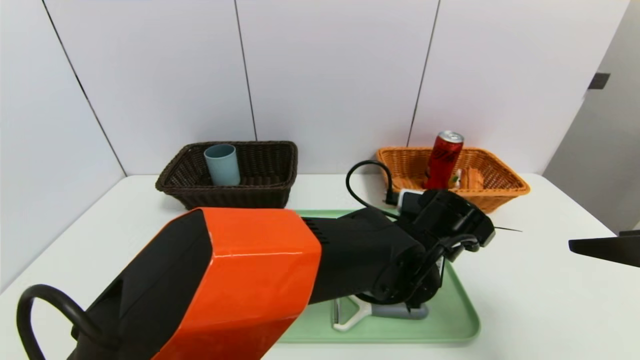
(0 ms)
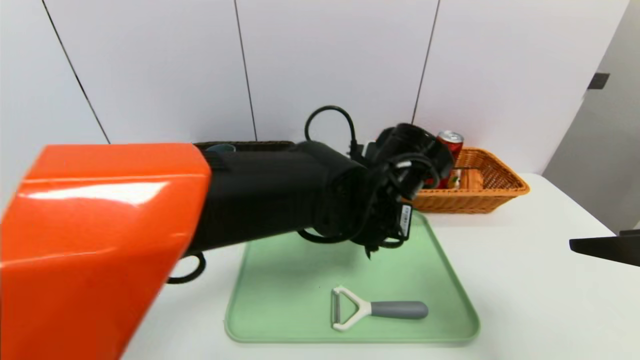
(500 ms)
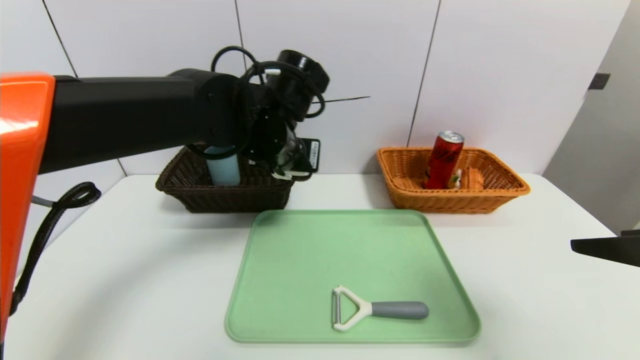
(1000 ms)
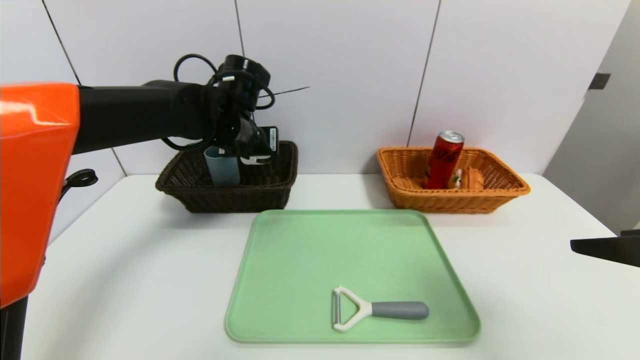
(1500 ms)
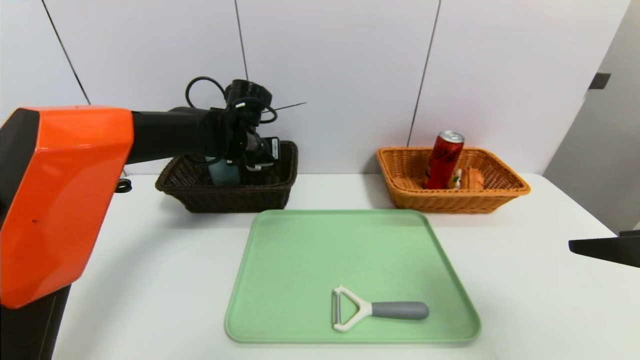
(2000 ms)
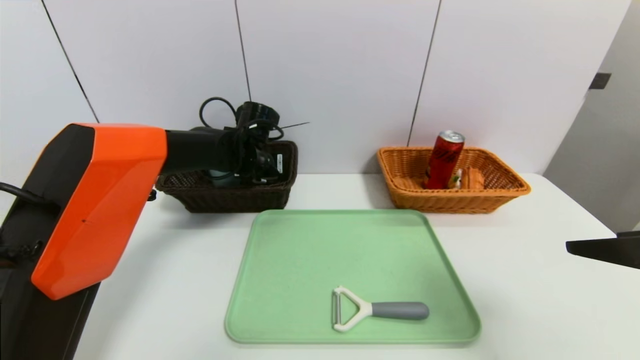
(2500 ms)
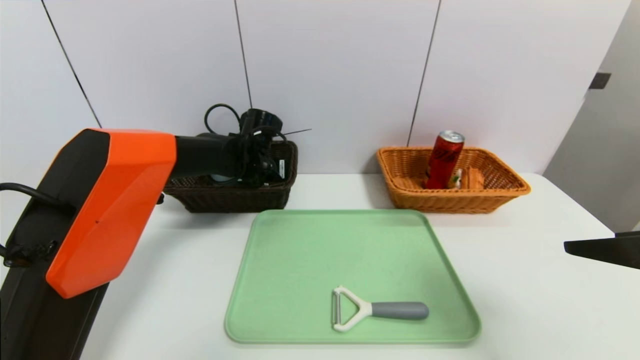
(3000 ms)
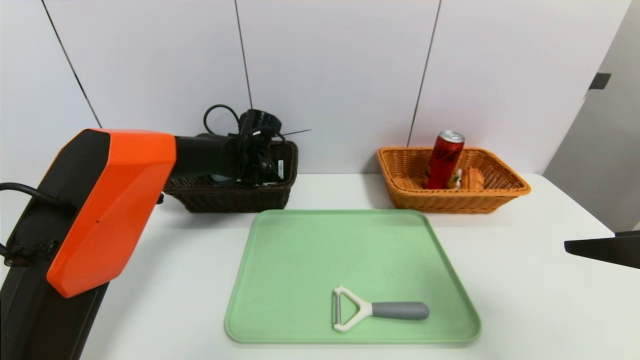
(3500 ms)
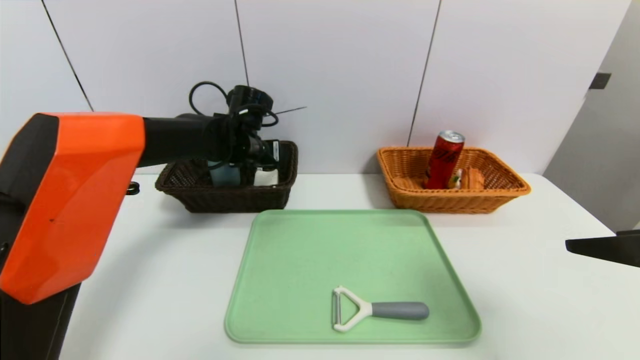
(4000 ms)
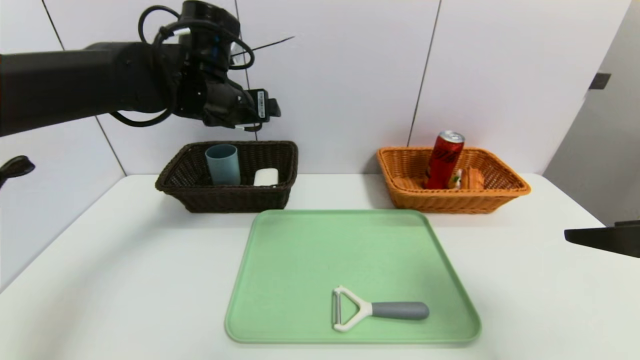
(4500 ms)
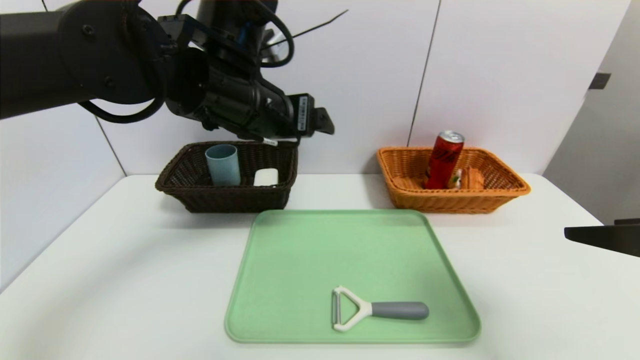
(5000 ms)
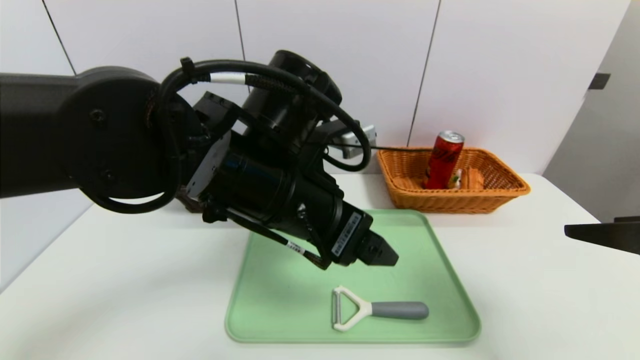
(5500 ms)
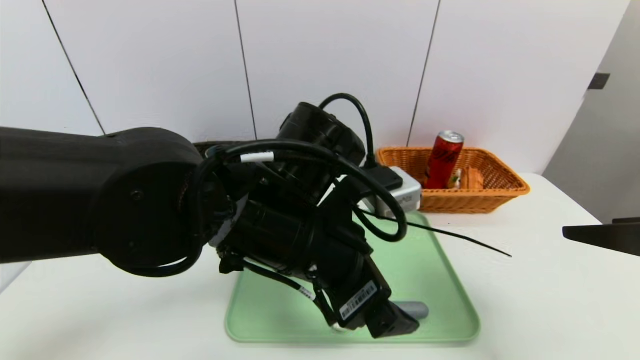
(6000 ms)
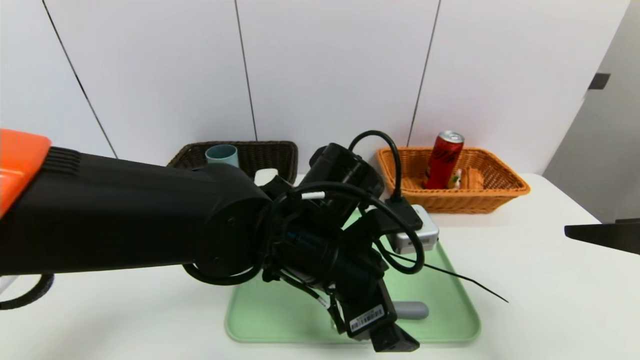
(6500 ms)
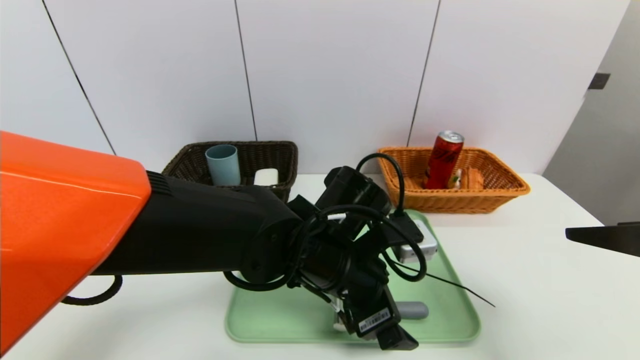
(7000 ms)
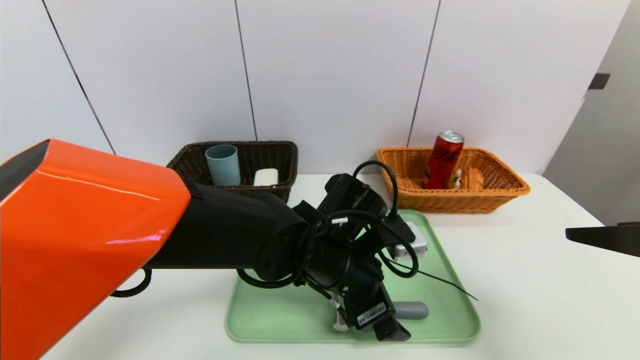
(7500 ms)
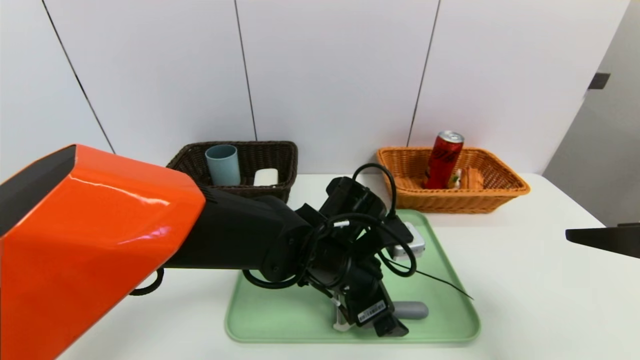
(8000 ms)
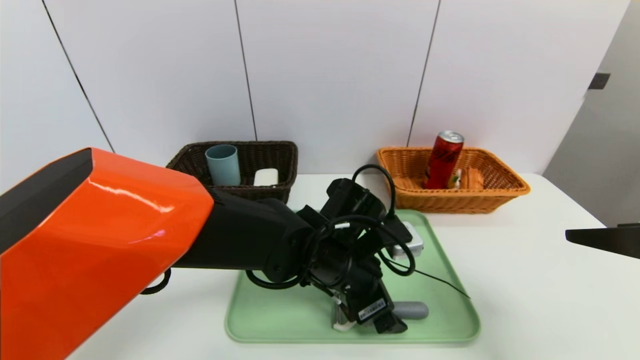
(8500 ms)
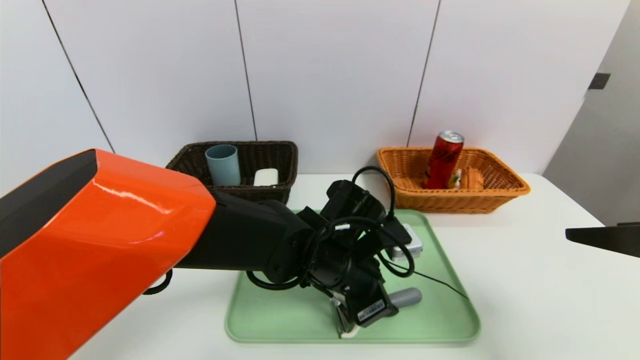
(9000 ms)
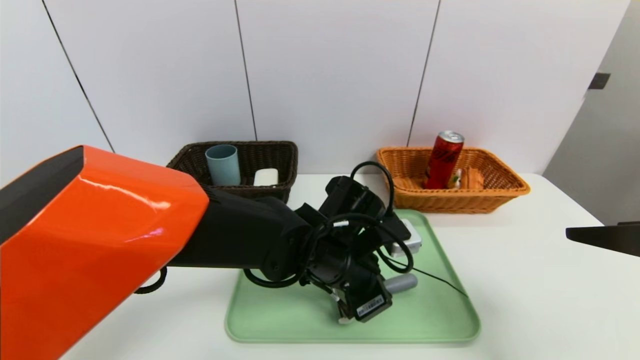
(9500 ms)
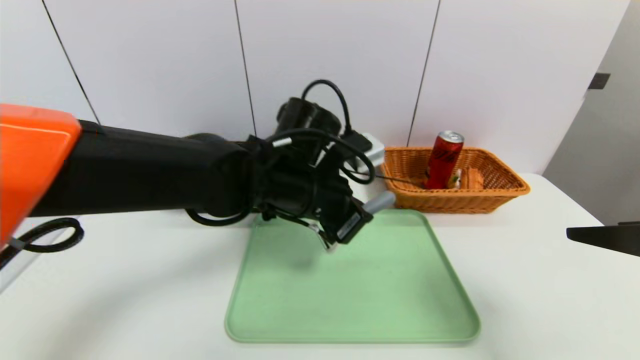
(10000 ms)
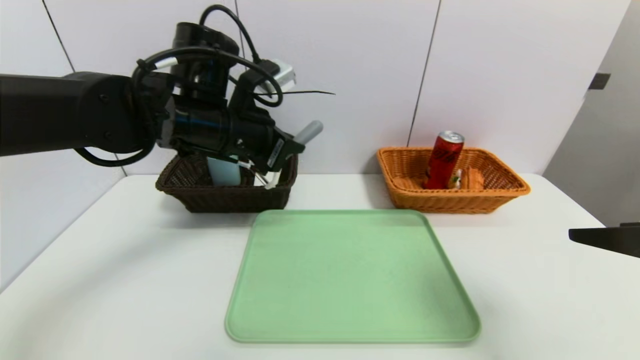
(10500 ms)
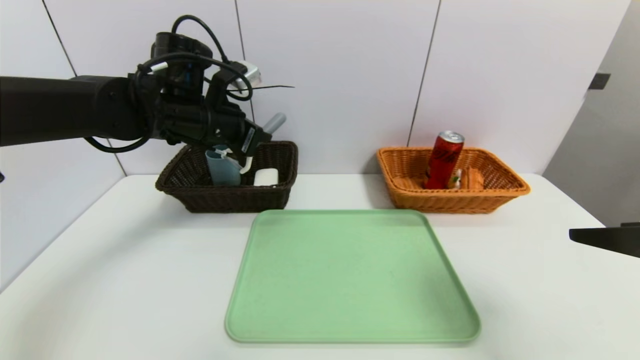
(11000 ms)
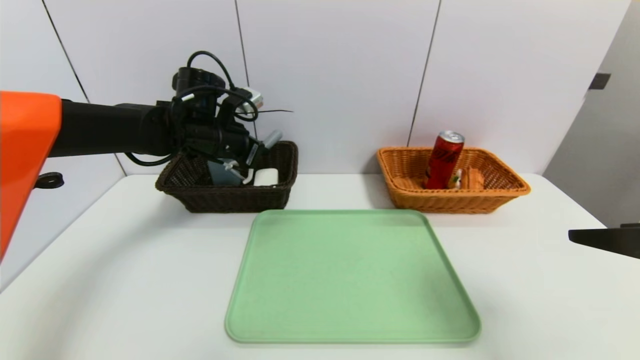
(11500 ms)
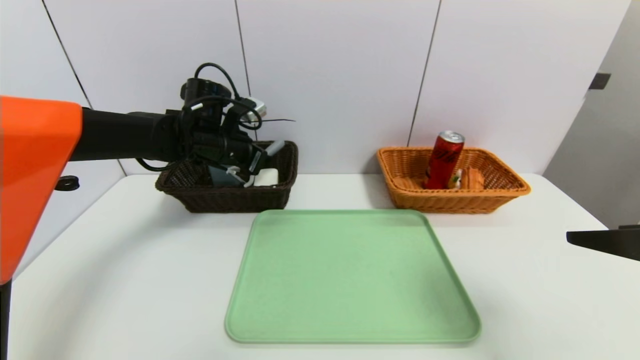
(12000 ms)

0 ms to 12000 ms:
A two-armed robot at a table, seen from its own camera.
Task of the whole recording: place the food in the right basket with the right gripper, and place the non food items in the left basket with the left gripper.
Step, 0 ms to 3500 ms: Grasp the soap and put it in the left basket.
0 ms to 2000 ms: The left gripper goes roughly 30 cm to the left and forward.
2000 ms to 4000 ms: The left gripper opens.
4000 ms to 6000 ms: The left gripper goes roughly 25 cm backward and to the right.
6000 ms to 8000 ms: The left gripper travels downward and forward by about 10 cm.
8000 ms to 10000 ms: The left gripper heads upward, covering approximately 10 cm, and closes.
10000 ms to 12000 ms: The left gripper goes some 20 cm to the left and forward.

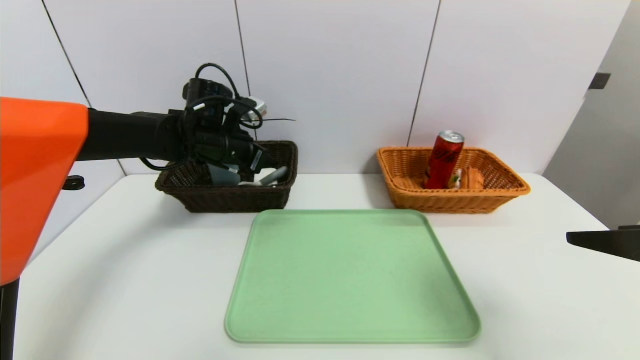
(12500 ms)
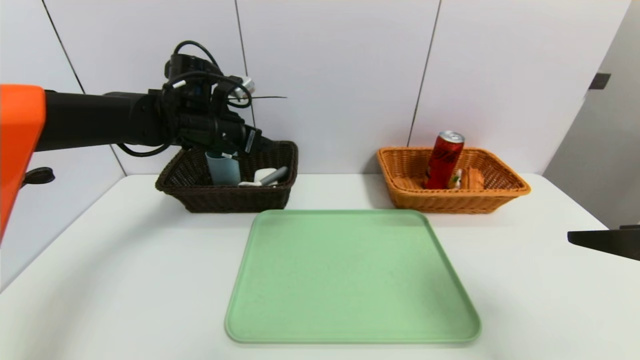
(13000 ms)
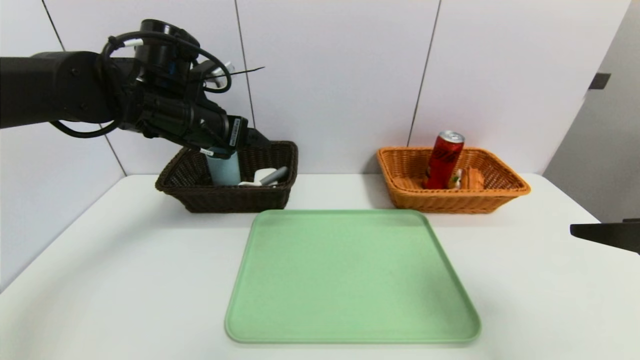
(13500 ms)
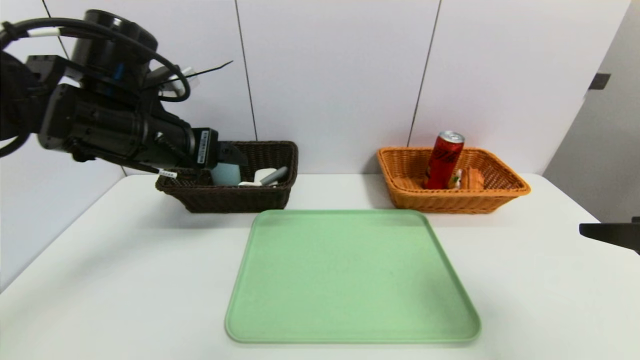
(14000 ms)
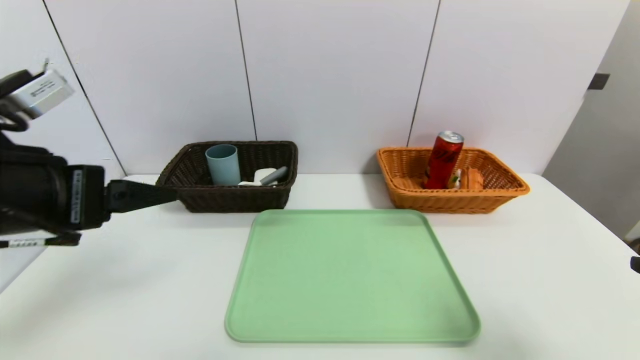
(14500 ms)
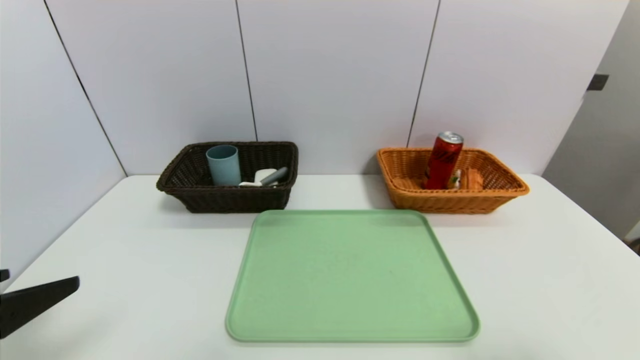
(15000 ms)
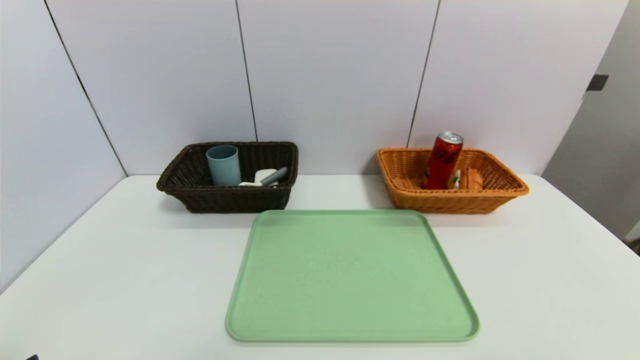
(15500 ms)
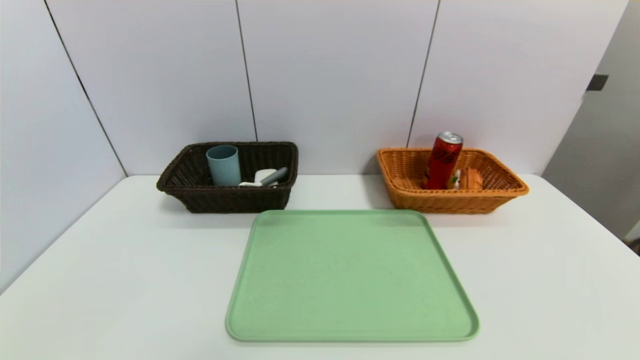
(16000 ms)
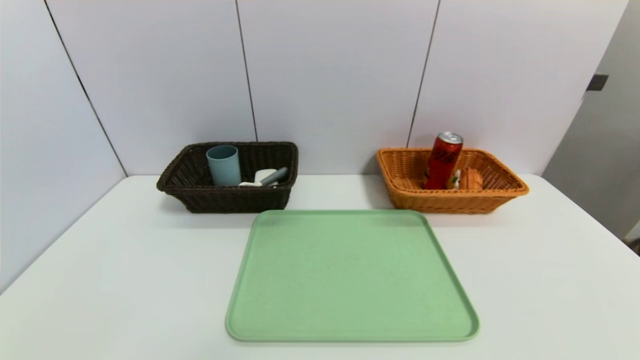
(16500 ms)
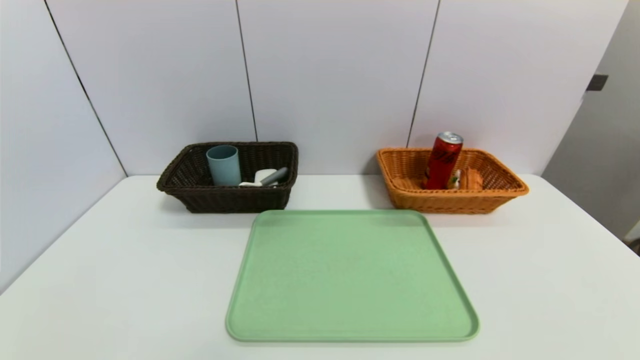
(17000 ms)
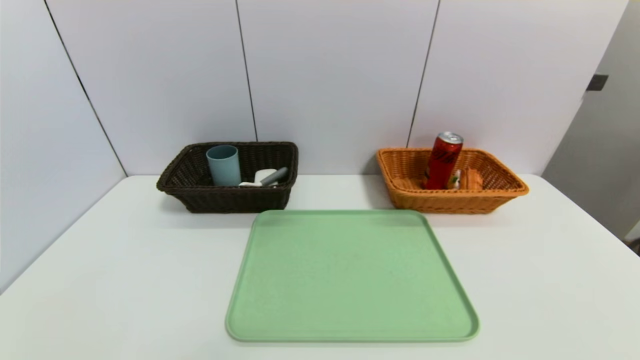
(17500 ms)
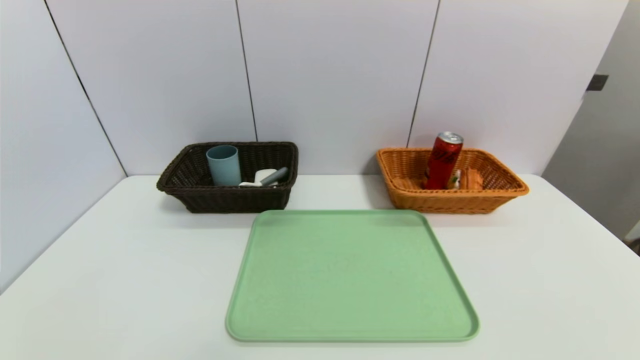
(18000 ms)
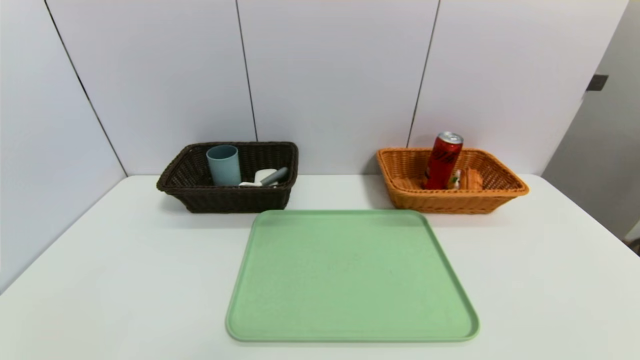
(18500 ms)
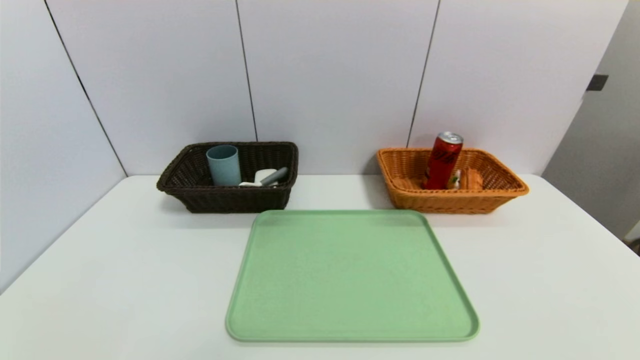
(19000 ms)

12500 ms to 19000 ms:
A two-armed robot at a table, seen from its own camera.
Task of the whole recording: place the food in the right basket with the right gripper, and place the non food items in the left basket with the left gripper.
12500 ms to 14500 ms: The left gripper goes about 30 cm backward, and opens up. The right gripper is displaced backward by about 5 cm.
14500 ms to 17000 ms: Both grippers move downward and backward, some 20 cm.
